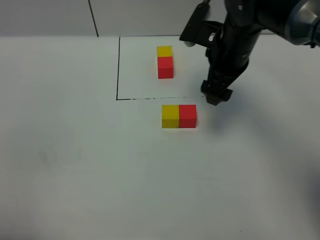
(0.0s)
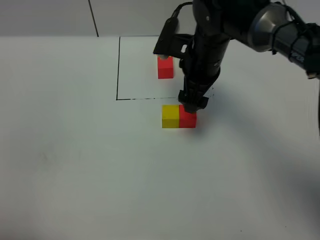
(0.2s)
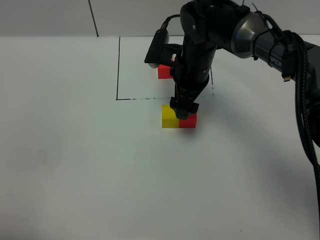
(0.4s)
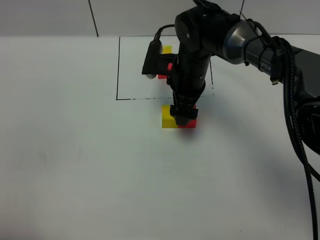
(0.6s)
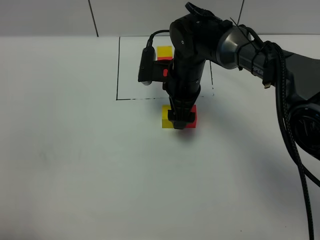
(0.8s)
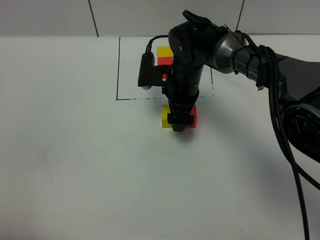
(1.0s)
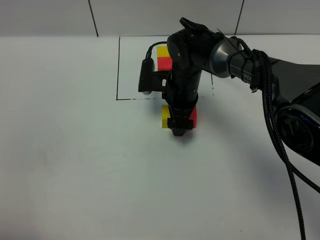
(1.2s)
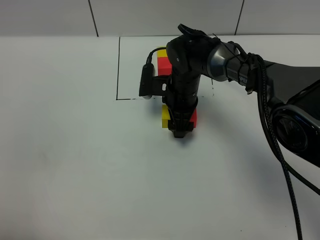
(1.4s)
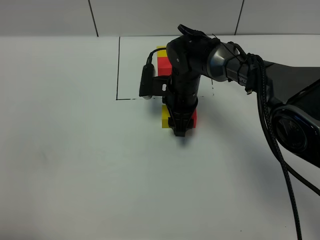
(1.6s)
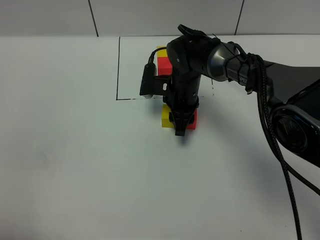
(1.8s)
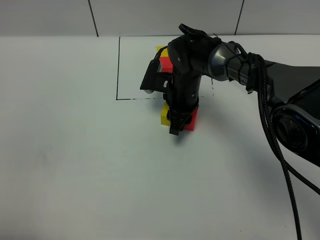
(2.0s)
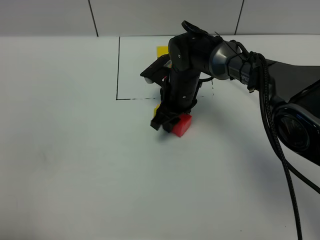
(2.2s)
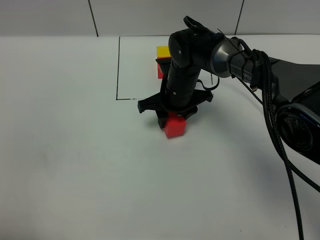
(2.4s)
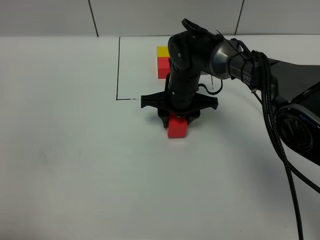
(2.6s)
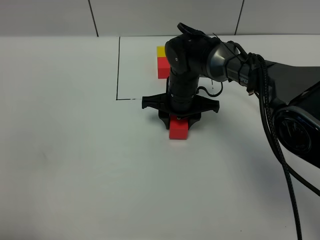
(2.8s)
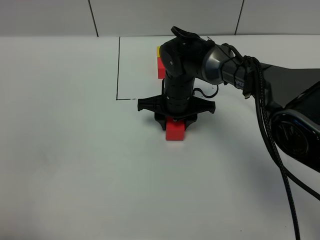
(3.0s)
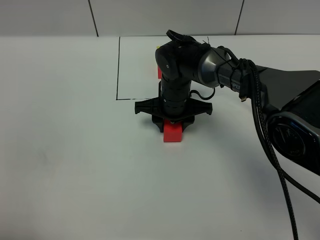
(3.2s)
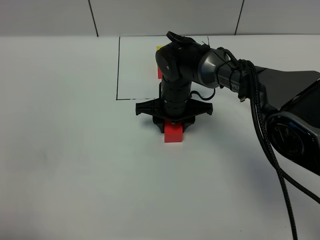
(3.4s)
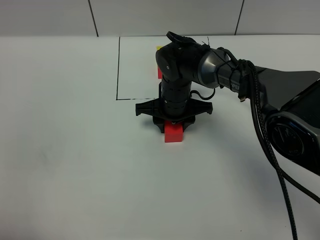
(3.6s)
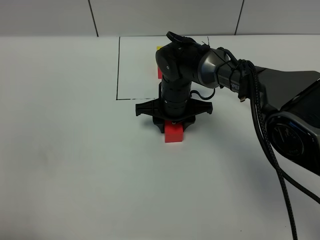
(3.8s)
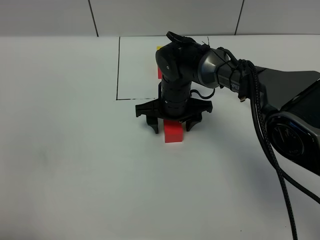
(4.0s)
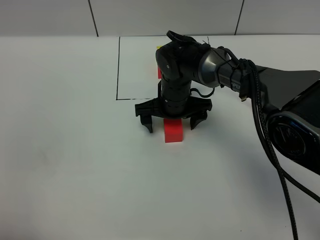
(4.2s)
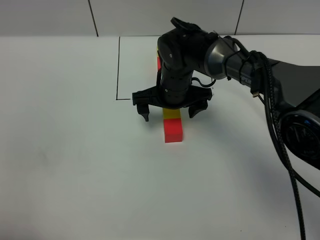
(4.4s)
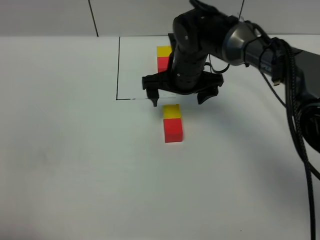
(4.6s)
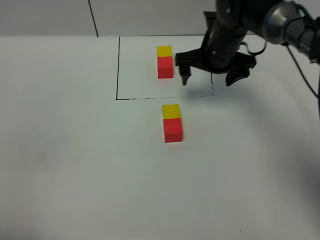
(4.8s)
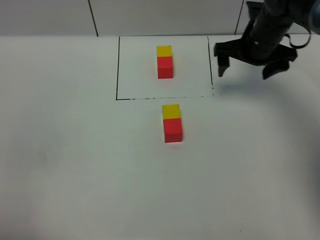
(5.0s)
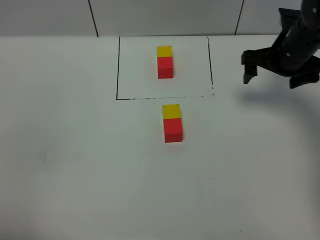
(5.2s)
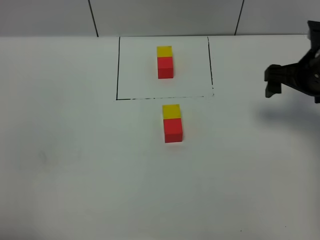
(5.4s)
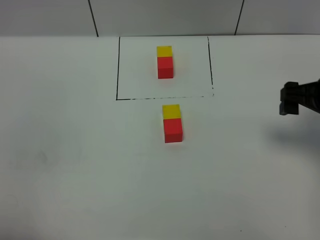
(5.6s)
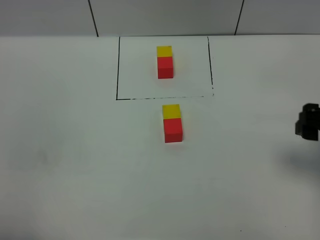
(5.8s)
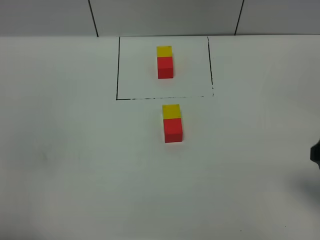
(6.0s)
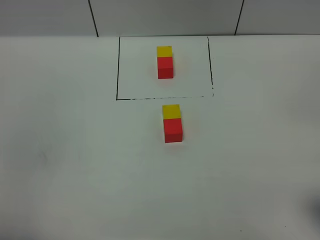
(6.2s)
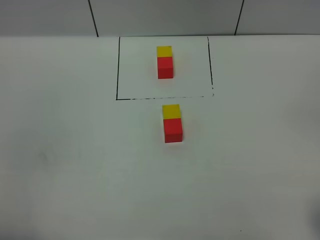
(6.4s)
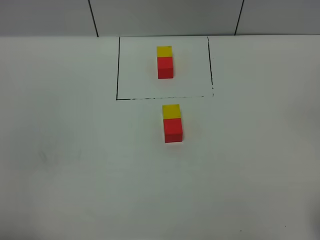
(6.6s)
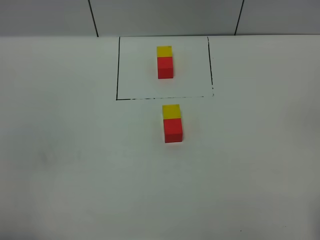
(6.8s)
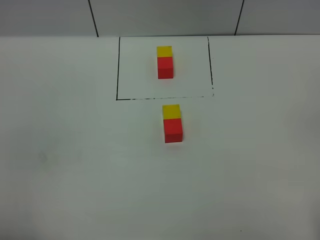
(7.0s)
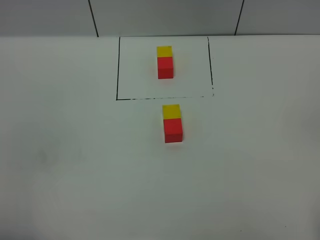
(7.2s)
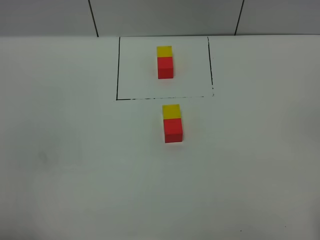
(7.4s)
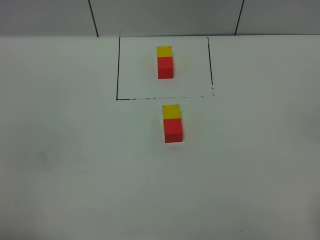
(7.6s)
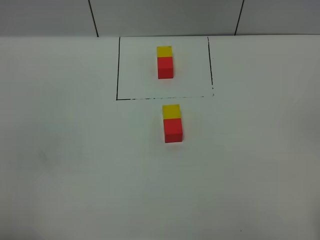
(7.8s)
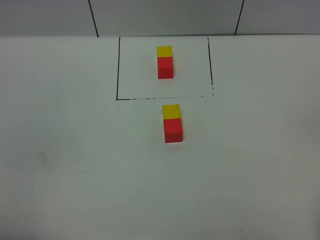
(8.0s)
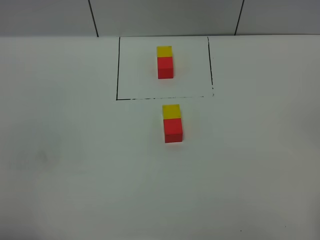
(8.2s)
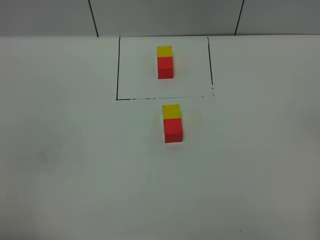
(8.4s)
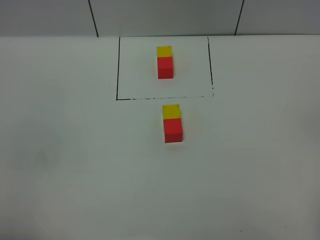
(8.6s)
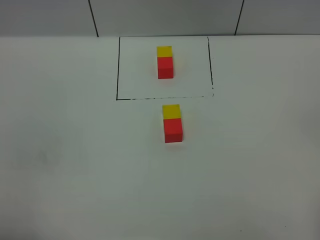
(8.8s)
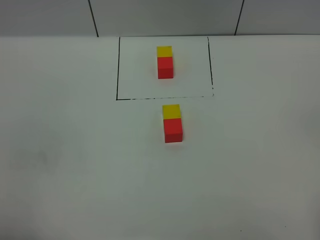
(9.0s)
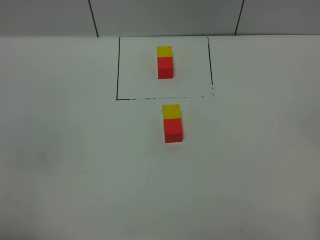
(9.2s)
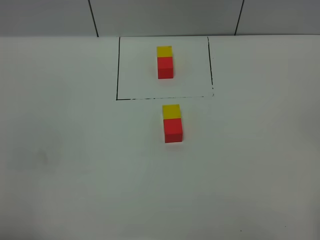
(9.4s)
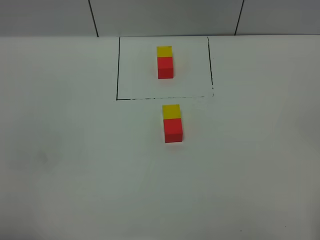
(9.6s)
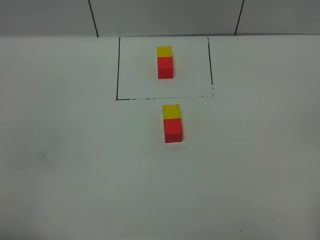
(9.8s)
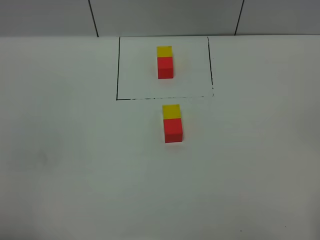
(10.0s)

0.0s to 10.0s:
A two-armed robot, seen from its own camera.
Task of the whole recording: According to the building block template in front, assemble the scattered blocks together.
Step, 0.0s to 4.2s: Adjust the pose of the building blocks.
0.0s to 1.4s: The right gripper goes about 15 cm downward and to the left.
1.4s to 2.8s: The right gripper closes its fingers.
2.8s to 4.2s: The right gripper opens up.
4.2s to 5.8s: The right gripper is displaced to the right, backward and upward by about 35 cm.
5.8s to 7.2s: The right gripper goes some 20 cm backward.
7.2s to 8.6s: Neither gripper changes place.

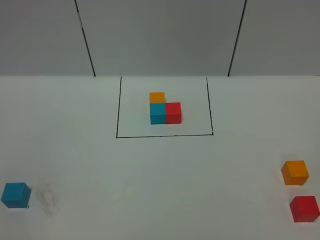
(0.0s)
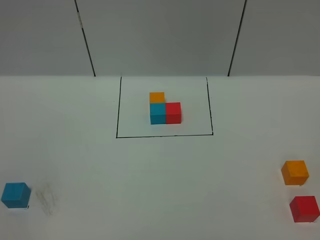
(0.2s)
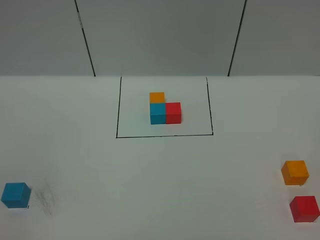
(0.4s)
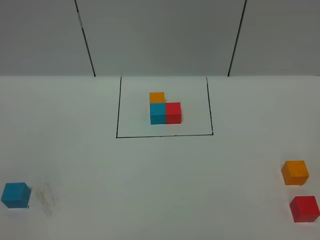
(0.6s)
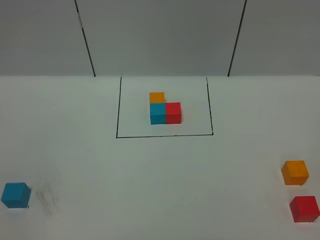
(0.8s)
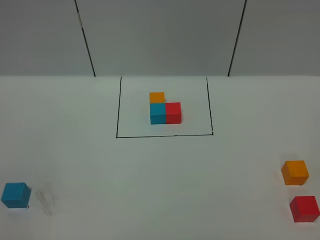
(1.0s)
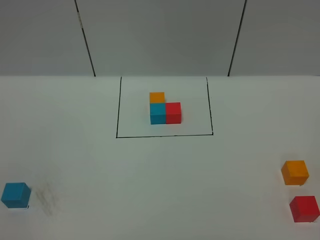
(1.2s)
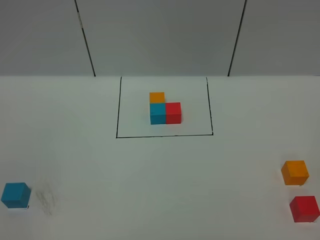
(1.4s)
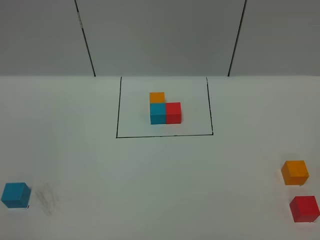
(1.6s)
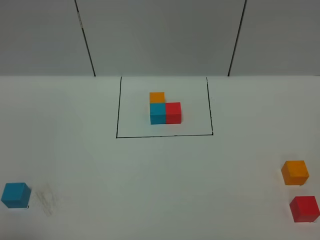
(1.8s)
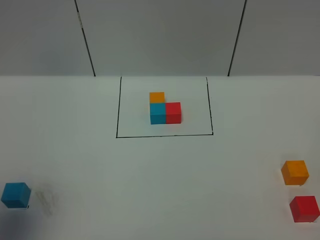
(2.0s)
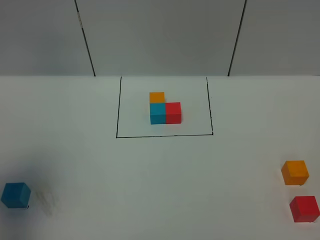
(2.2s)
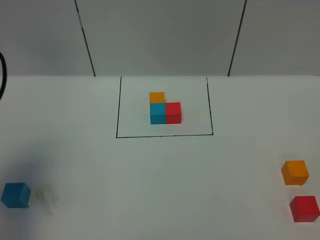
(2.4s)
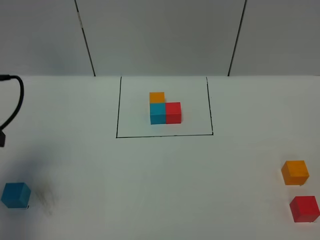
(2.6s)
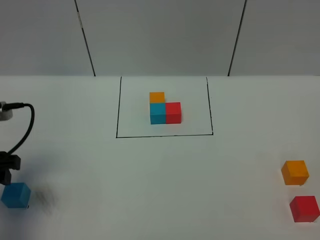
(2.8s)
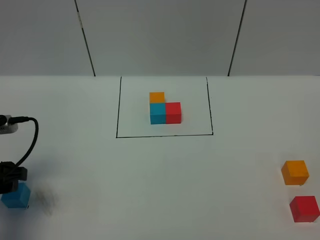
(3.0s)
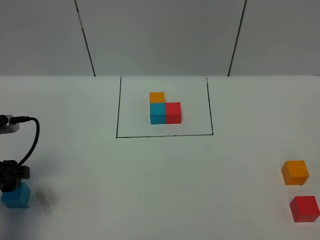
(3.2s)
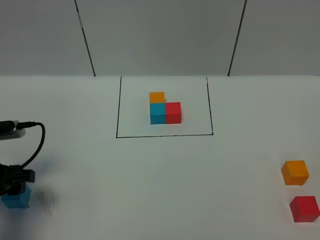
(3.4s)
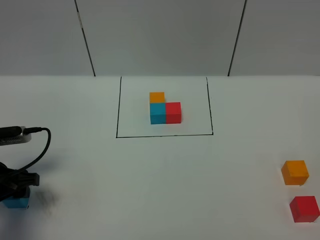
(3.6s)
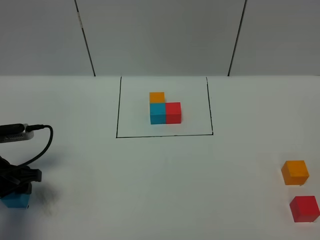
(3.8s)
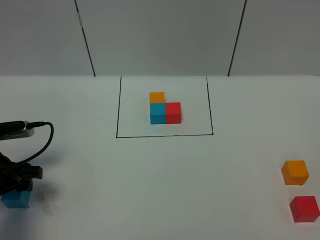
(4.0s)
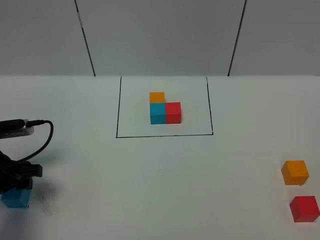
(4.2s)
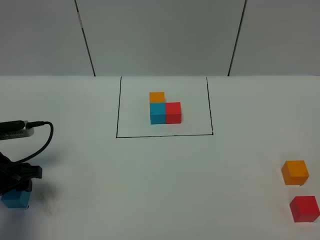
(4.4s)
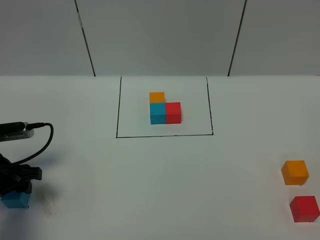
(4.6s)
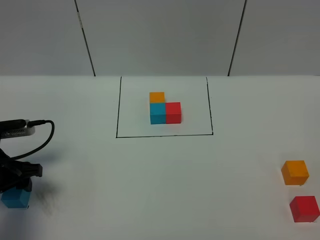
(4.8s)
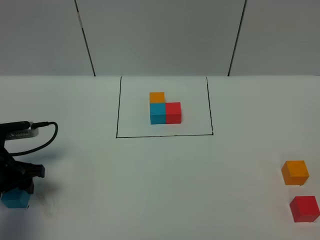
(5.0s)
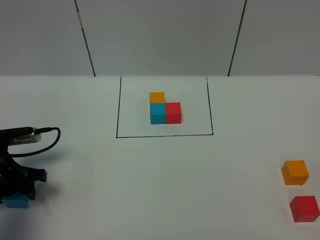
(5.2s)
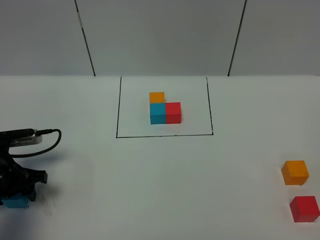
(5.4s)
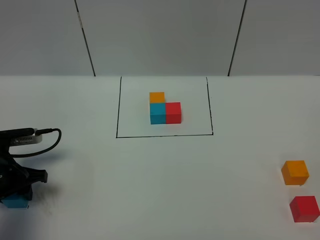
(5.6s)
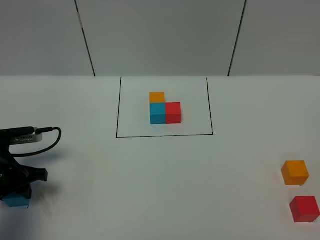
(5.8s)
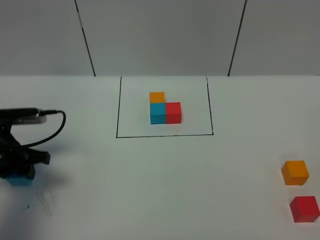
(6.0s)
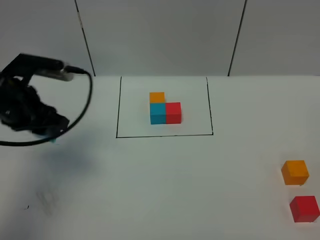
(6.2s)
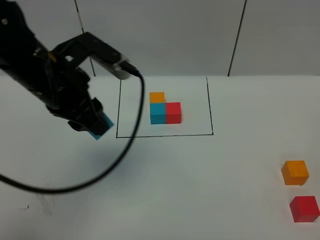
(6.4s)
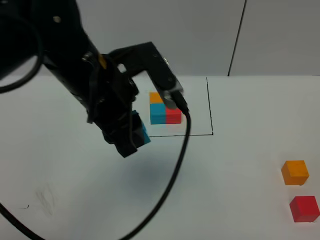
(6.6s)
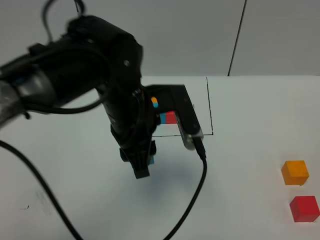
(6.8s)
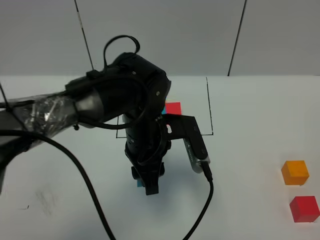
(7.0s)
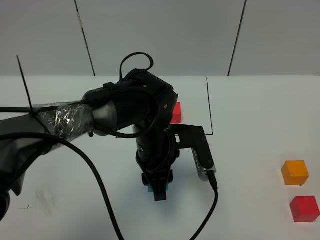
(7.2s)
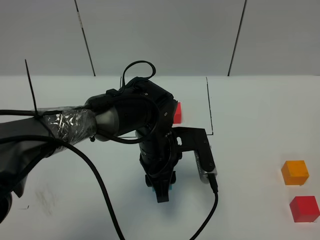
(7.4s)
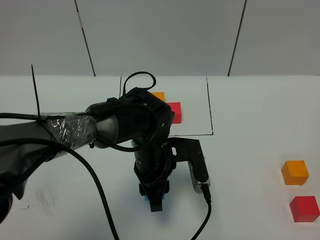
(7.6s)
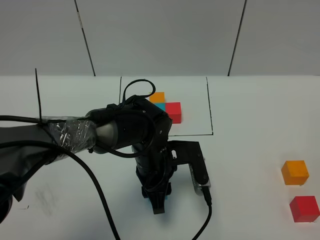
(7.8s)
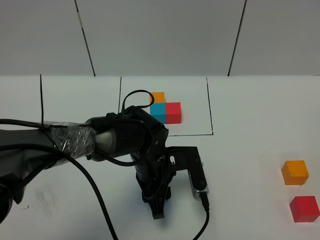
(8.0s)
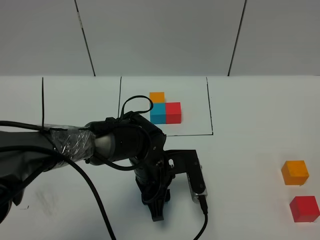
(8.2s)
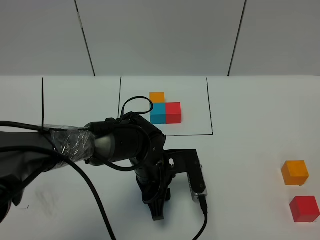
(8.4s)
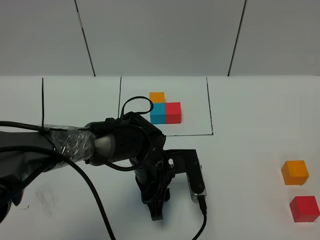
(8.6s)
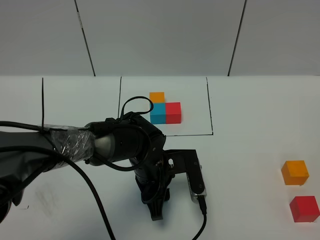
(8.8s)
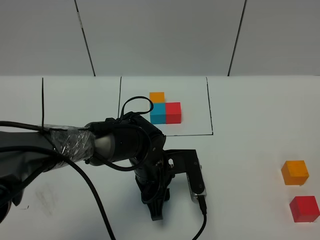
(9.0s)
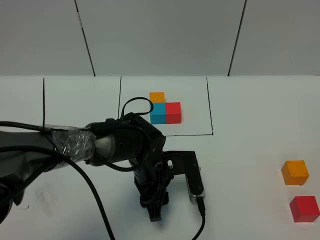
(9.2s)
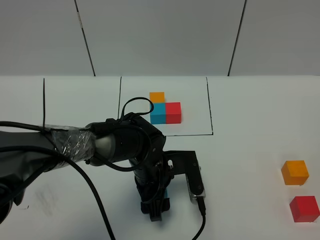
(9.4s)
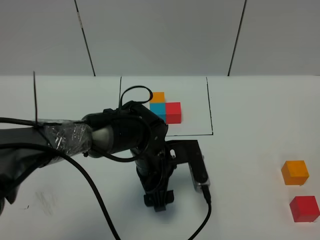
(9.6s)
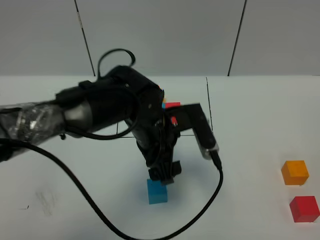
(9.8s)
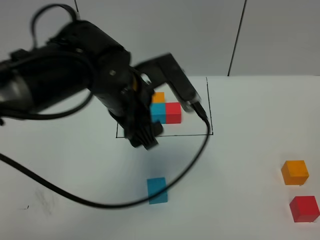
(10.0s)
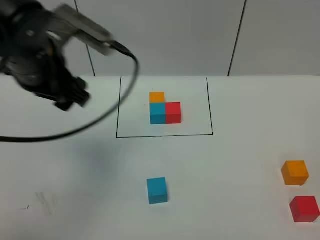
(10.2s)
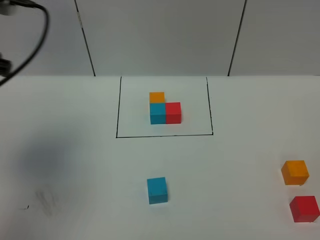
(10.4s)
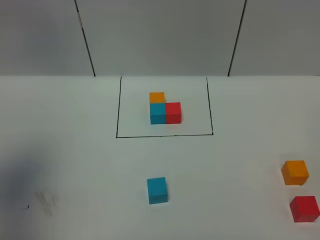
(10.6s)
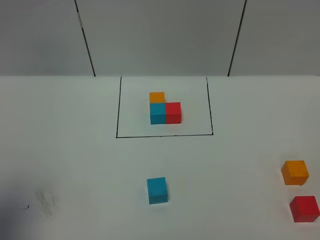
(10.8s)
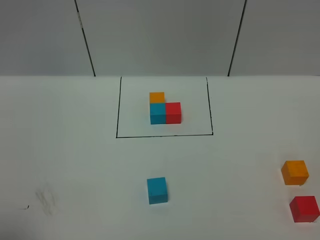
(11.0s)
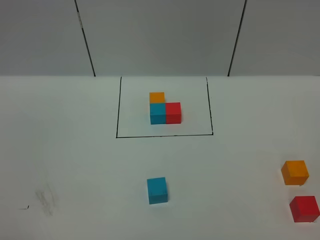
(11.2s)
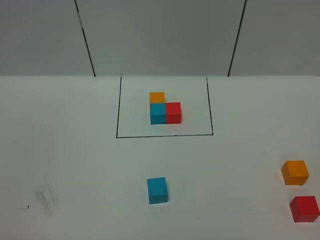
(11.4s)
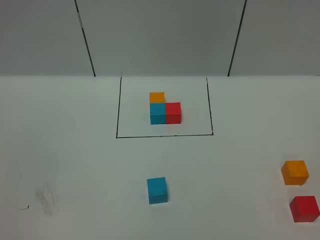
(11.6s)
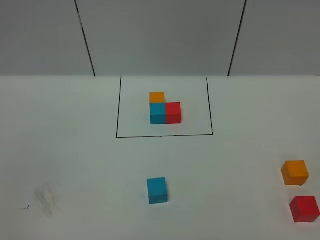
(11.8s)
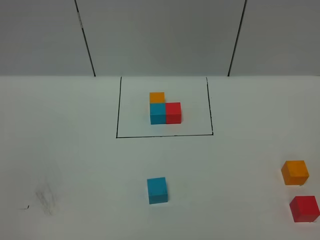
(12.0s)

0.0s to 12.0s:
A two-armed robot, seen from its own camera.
Task of the whole recording: According to the building block template in front, assemble the scattered blocks together.
Step, 2.4s to 9.6s: Put the blue cube in the center of the table.
1.6s to 3.0s: The left gripper moves forward and downward, about 25 cm.
3.0s to 4.4s: The left gripper heads downward, covering about 5 cm.
4.4s to 6.0s: The left gripper closes its fingers.
6.0s to 7.6s: The left gripper shifts some 30 cm to the right.
7.6s to 9.0s: There are only small adjustments of the grippers.
9.0s to 10.4s: The left gripper travels upward and to the left by about 35 cm, and opens up.
10.4s to 12.0s: The left gripper moves backward and downward, some 30 cm.
